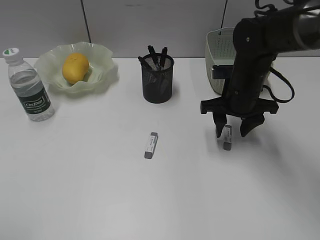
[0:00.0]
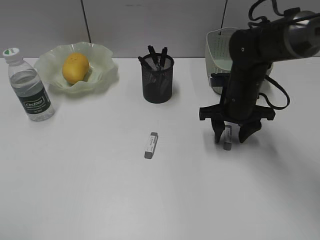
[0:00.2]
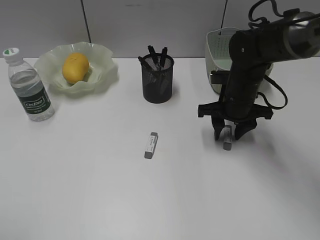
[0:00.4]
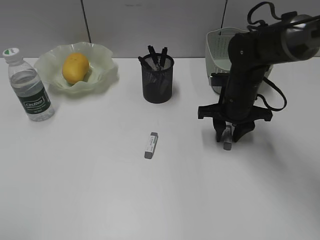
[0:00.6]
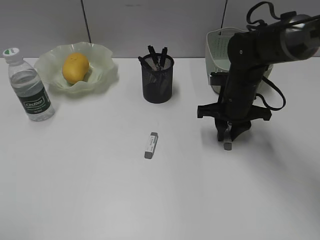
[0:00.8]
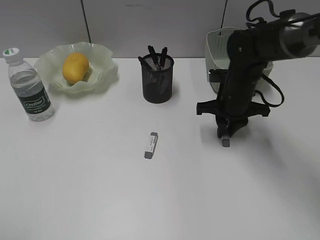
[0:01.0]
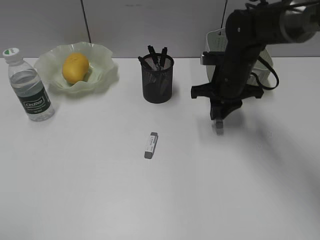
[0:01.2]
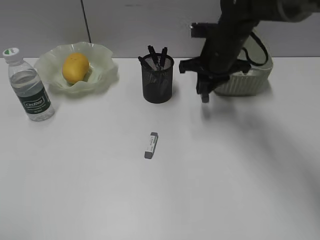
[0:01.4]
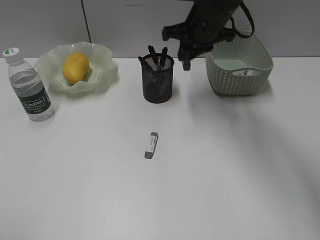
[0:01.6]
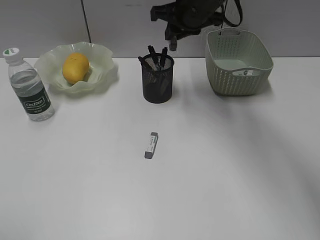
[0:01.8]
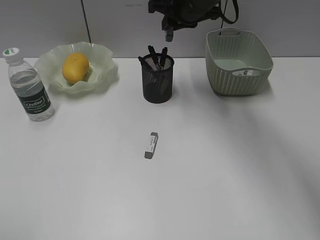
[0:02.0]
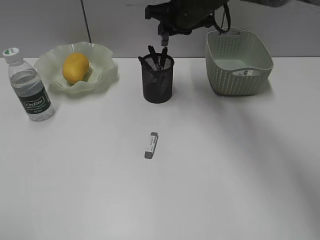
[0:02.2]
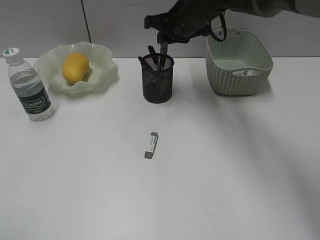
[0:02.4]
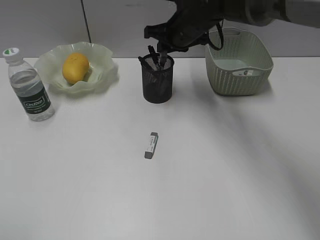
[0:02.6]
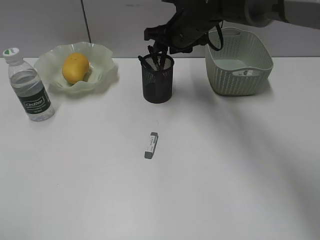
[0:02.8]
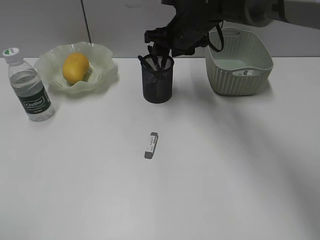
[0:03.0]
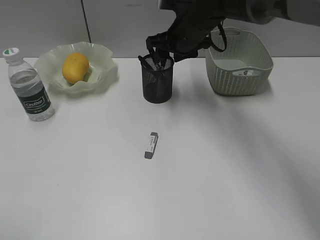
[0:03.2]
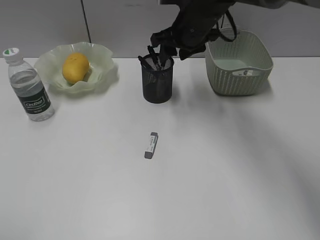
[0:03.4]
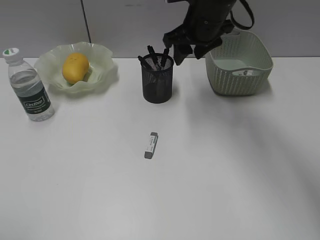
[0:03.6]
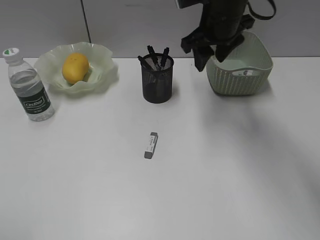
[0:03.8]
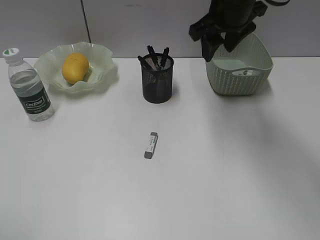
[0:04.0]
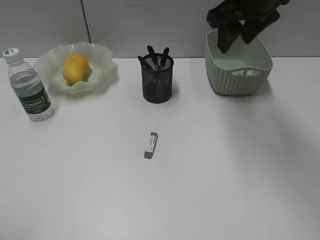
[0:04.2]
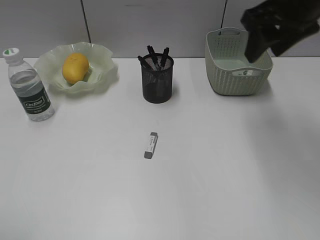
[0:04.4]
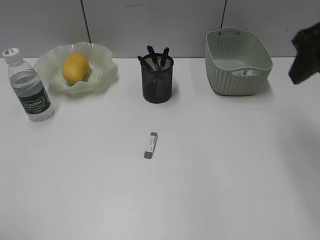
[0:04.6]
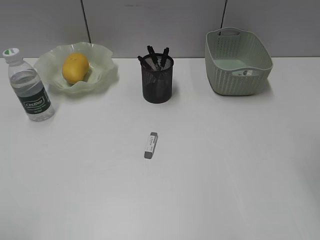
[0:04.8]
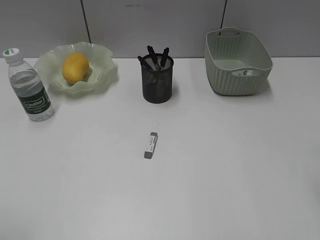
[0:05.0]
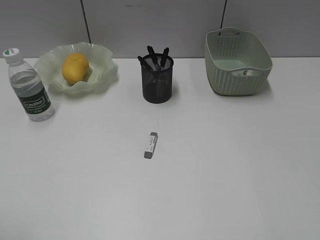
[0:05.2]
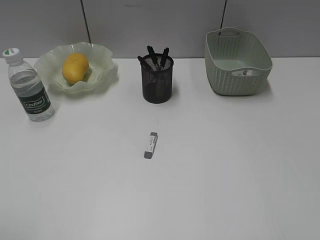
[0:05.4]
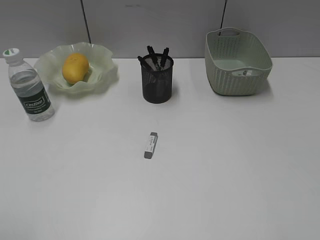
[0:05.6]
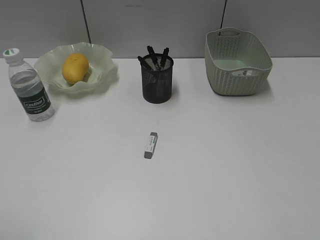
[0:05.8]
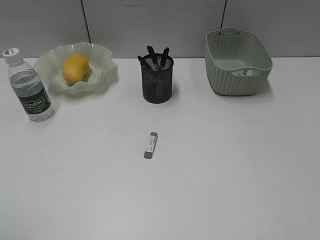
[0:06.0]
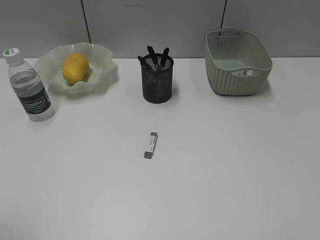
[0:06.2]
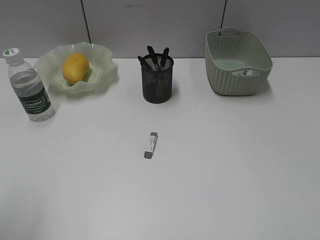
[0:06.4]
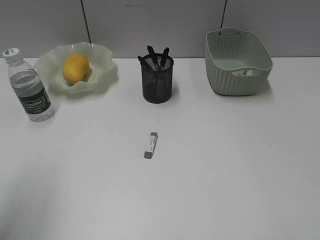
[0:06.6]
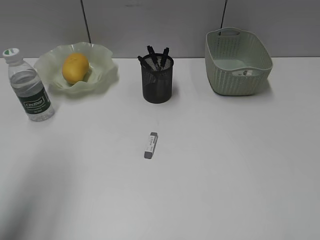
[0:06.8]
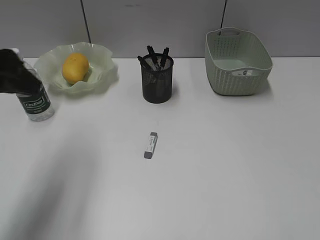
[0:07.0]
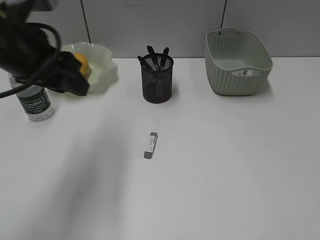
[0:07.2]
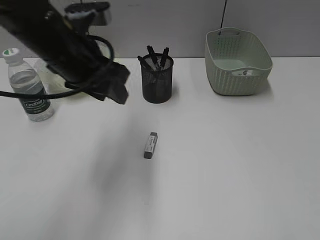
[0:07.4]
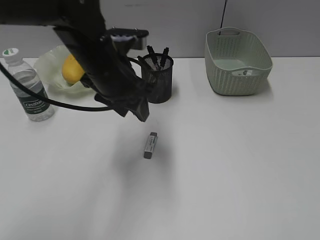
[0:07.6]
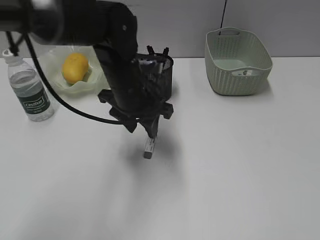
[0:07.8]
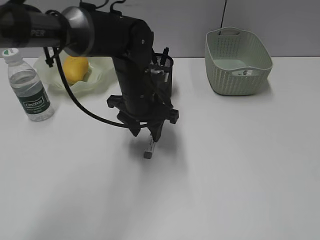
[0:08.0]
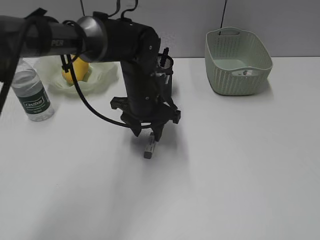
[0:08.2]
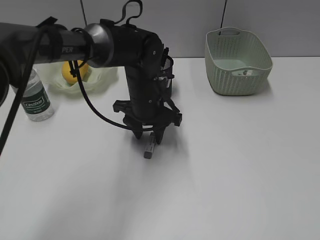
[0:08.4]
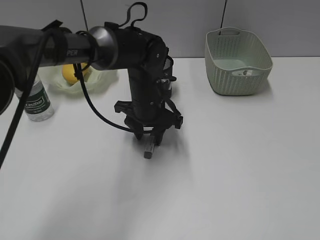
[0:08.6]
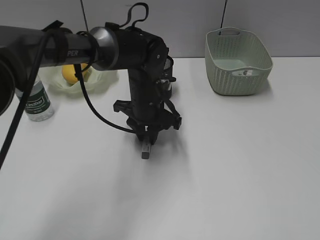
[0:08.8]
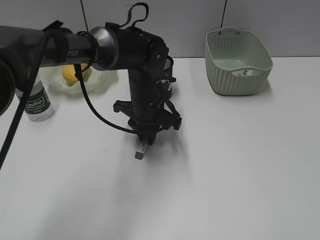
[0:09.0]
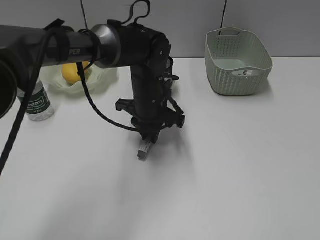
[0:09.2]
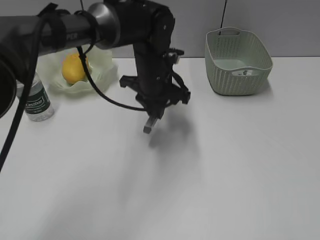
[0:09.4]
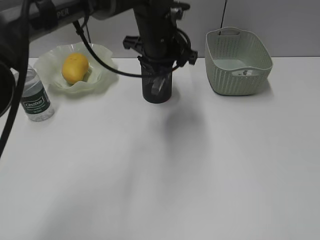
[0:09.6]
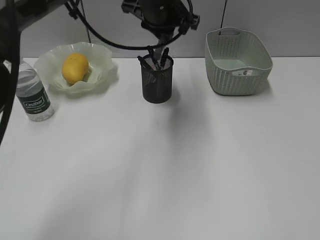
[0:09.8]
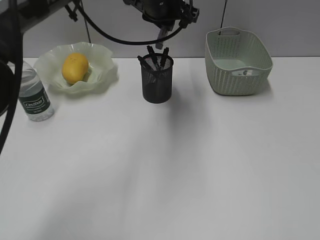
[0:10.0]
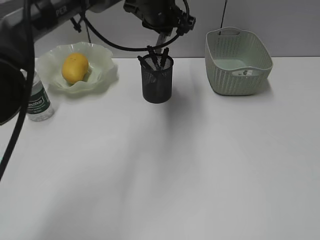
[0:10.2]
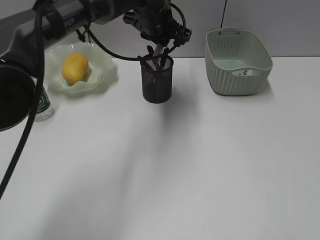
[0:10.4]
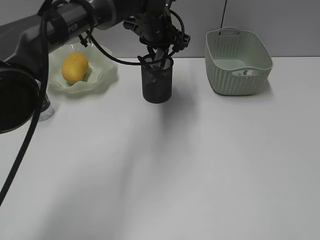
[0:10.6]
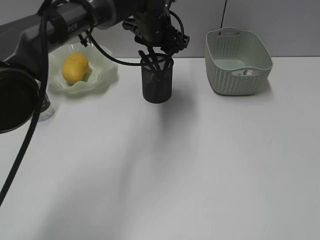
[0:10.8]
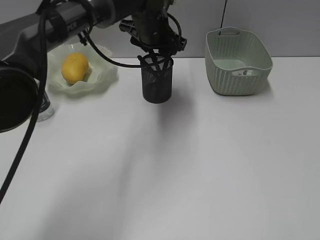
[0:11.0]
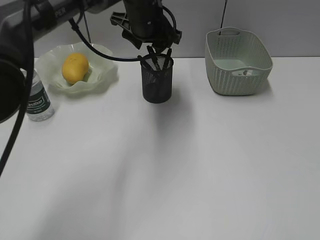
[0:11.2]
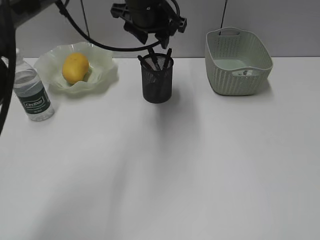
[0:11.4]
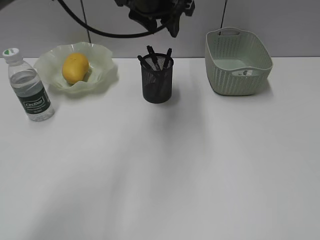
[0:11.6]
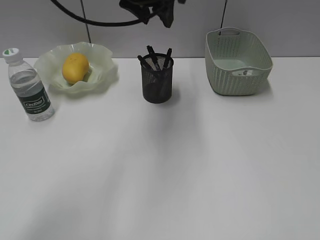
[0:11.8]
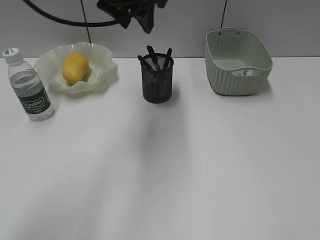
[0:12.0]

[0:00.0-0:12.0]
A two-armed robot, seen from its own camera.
Step, 0:01.0 to 0:02.8: Place the eraser in pen holder with right gripper.
Step, 0:03.0 to 0:09.0: Grasp the eraser with left gripper.
Step, 0:09.2 to 0:10.8: Place the eraser in pen holder with left gripper.
0:00.0 to 0:01.6: The right gripper shifts roughly 15 cm upward, forward and to the left, and closes its fingers.
0:01.6 to 0:03.0: The right gripper shifts by about 5 cm, and opens its fingers.
0:03.0 to 0:04.4: The right gripper moves backward, to the right and upward, approximately 25 cm.
0:04.4 to 0:06.0: The right gripper travels backward by roughly 30 cm.
0:06.0 to 0:07.6: The left gripper is displaced forward and to the right by approximately 35 cm.
0:07.6 to 0:09.0: The left gripper is displaced downward and to the right by some 10 cm, and closes.
0:09.0 to 0:10.4: The left gripper goes approximately 15 cm upward and forward.
0:10.4 to 0:12.0: The left gripper shifts some 15 cm upward, backward and to the left, and opens.

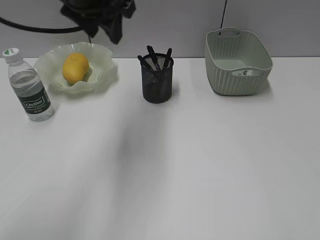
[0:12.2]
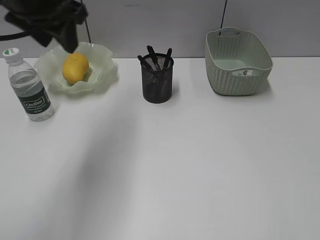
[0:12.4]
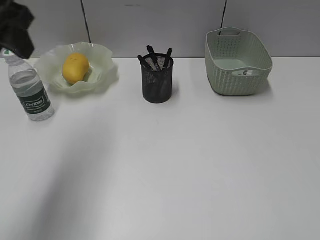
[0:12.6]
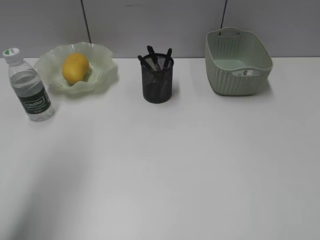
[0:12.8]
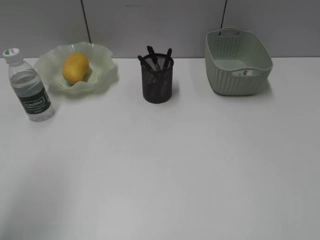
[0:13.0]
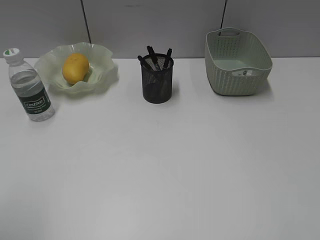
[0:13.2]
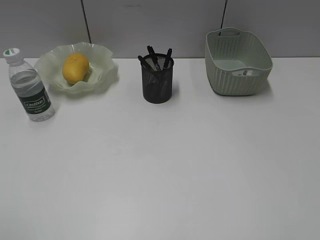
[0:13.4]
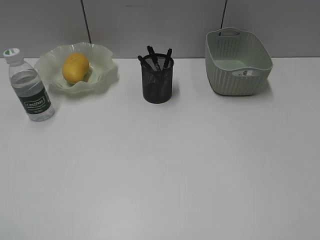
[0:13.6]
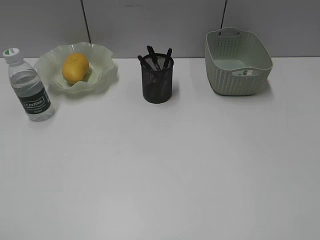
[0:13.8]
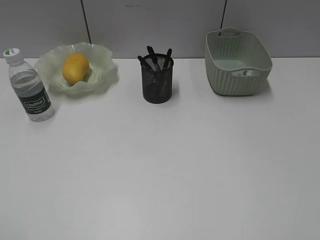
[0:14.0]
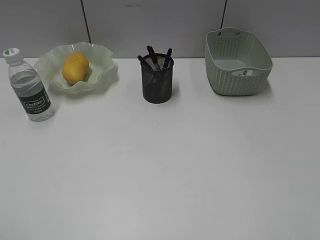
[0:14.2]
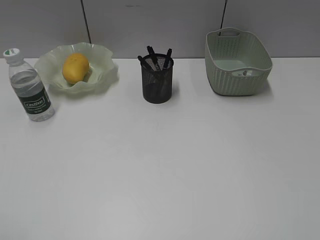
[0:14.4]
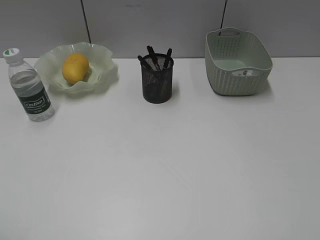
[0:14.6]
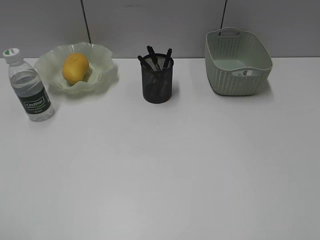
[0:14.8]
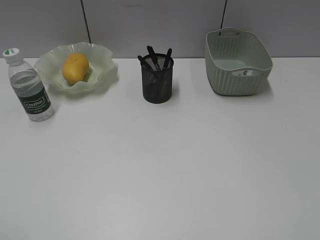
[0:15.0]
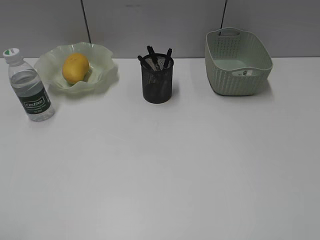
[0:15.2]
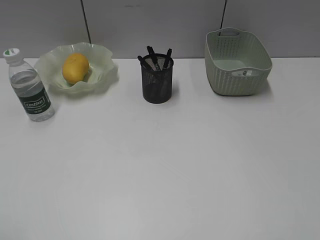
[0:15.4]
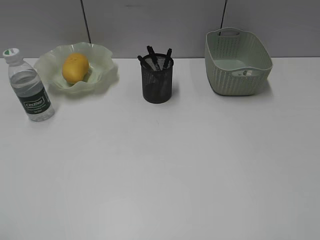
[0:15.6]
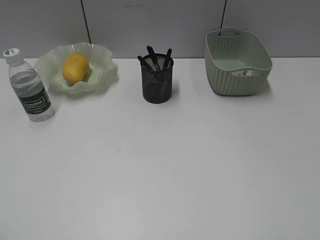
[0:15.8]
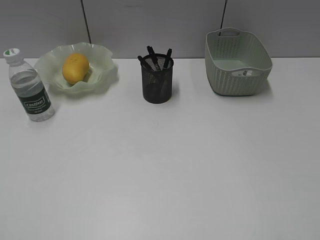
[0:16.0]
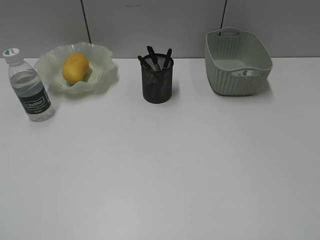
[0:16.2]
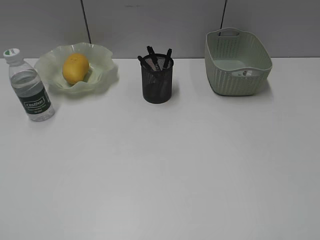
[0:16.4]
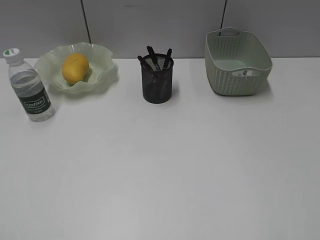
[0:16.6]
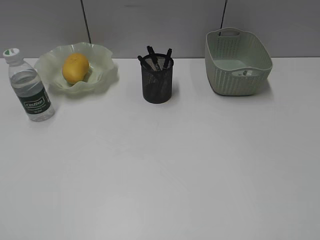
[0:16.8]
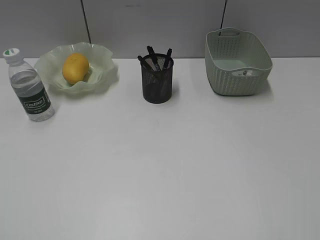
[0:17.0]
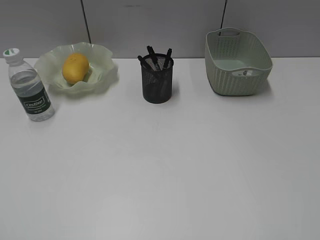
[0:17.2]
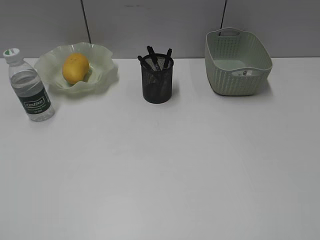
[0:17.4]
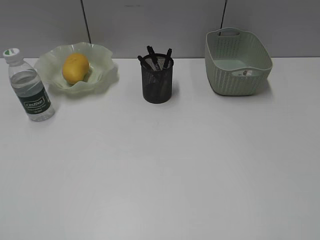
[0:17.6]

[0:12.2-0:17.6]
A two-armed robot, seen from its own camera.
0:12.2 to 0:13.6: The left gripper goes approximately 40 cm backward and to the left.
0:16.2 to 0:17.6: Neither gripper changes place.

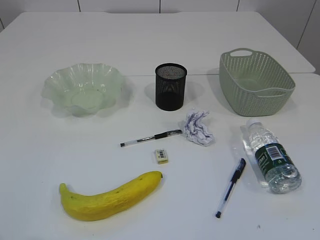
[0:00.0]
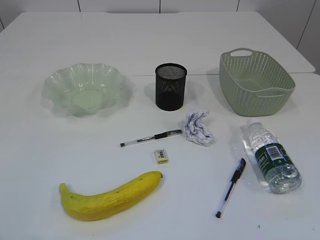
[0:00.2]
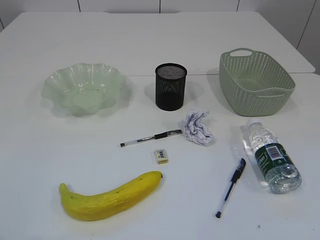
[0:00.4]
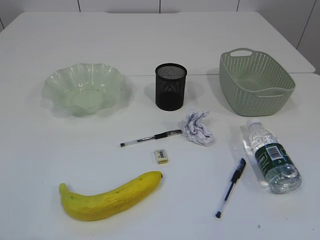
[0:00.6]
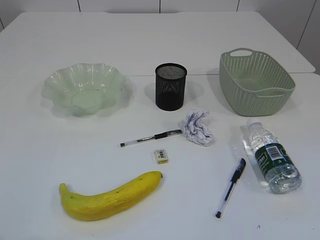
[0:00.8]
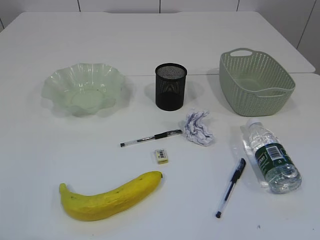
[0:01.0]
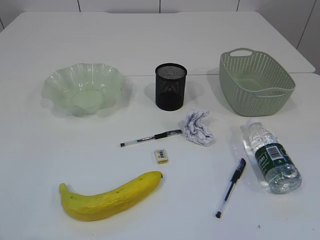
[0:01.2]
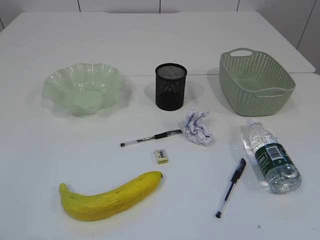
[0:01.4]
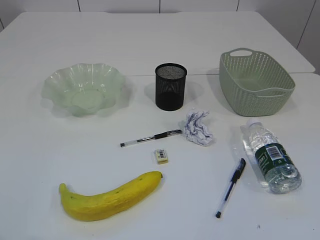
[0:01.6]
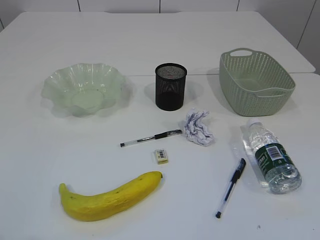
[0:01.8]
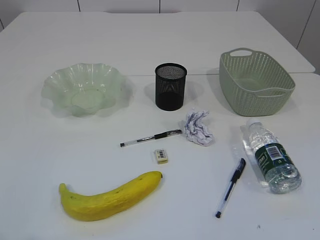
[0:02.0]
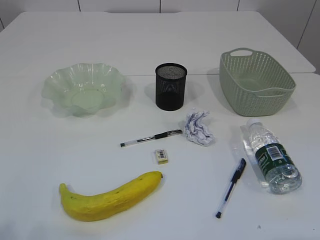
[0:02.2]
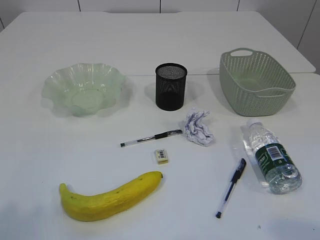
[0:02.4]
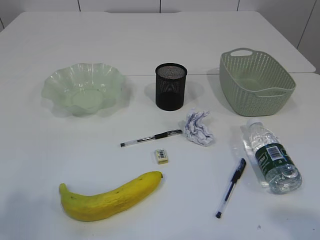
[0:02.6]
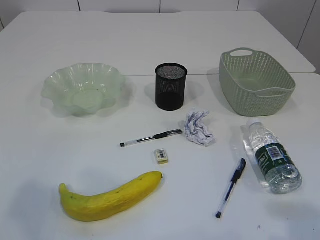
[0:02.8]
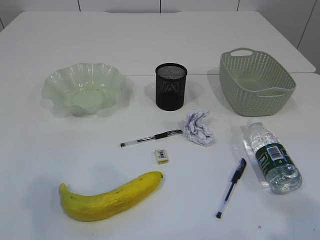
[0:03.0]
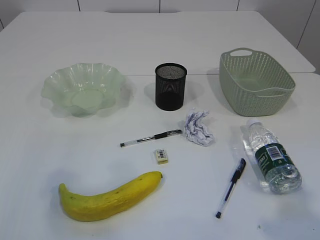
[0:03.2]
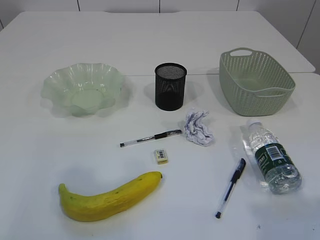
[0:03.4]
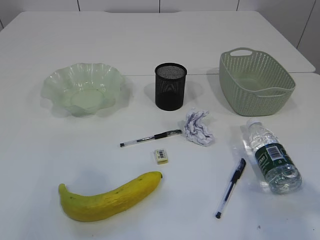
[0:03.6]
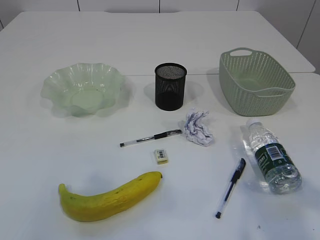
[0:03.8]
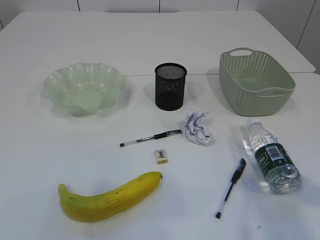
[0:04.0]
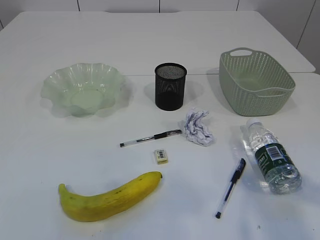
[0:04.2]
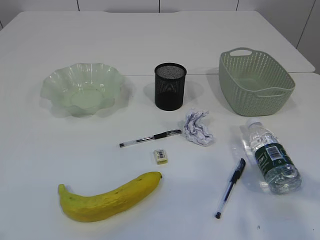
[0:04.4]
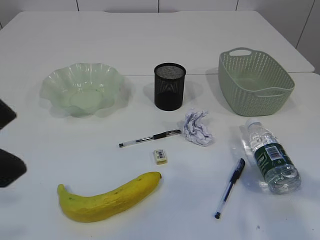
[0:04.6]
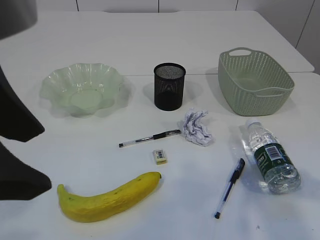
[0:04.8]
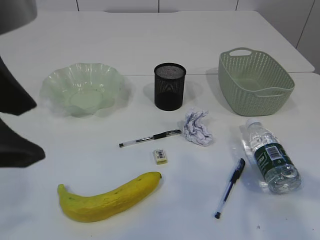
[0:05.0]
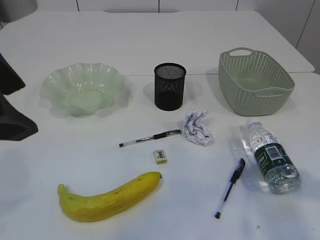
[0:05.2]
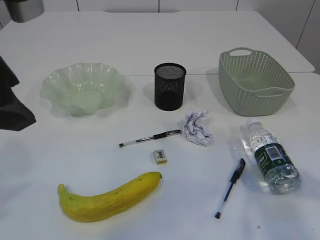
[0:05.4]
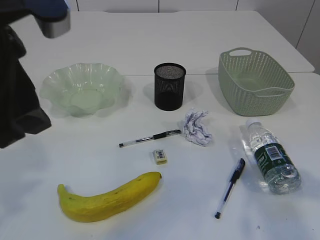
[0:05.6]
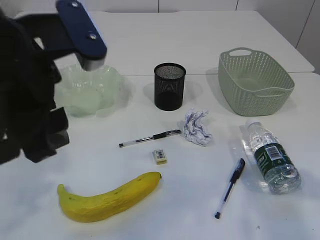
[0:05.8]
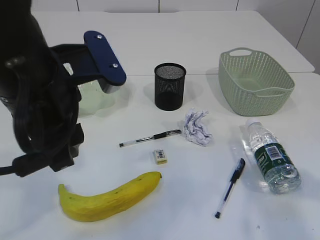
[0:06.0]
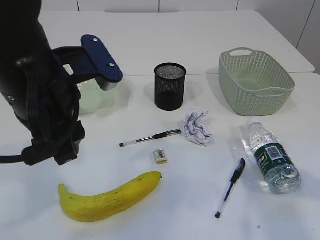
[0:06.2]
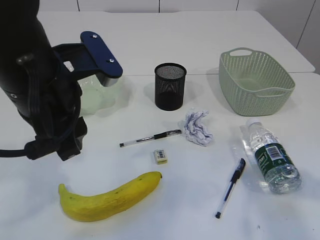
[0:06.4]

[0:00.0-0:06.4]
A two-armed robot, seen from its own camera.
0:01.6 to 0:03.2: The left gripper travels forward and upward by roughly 10 cm.
0:03.2 to 0:04.8: The left gripper is displaced to the right by some 15 cm. Meanwhile the right gripper is displaced forward by some 10 cm.
0:04.8 to 0:06.4: The left gripper is displaced forward and downward by some 15 cm.
